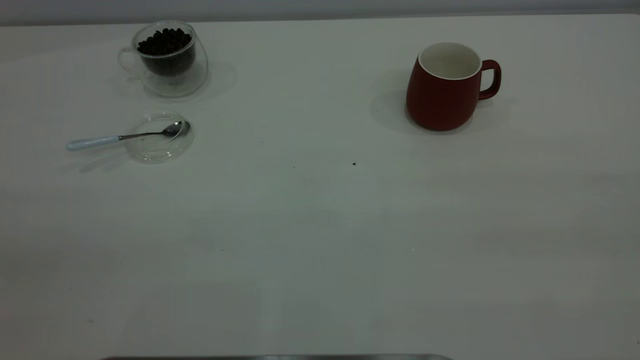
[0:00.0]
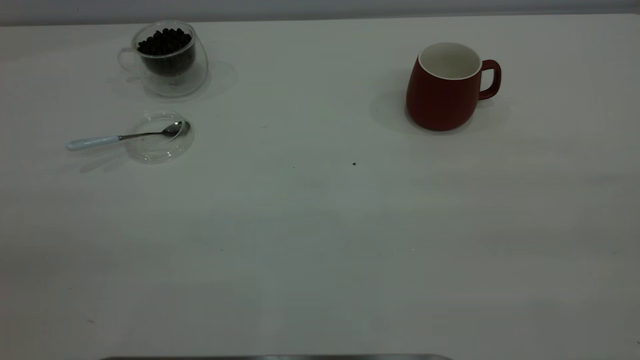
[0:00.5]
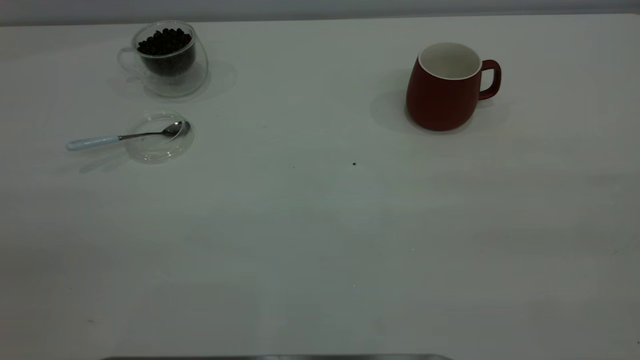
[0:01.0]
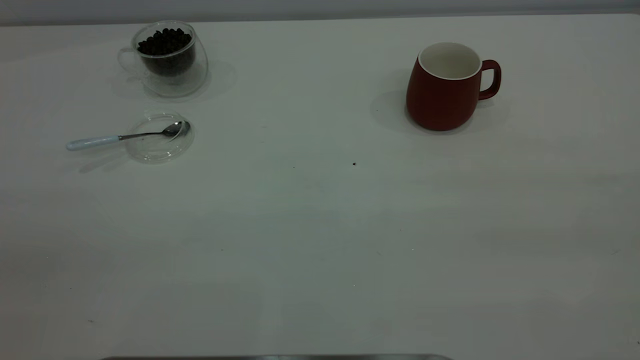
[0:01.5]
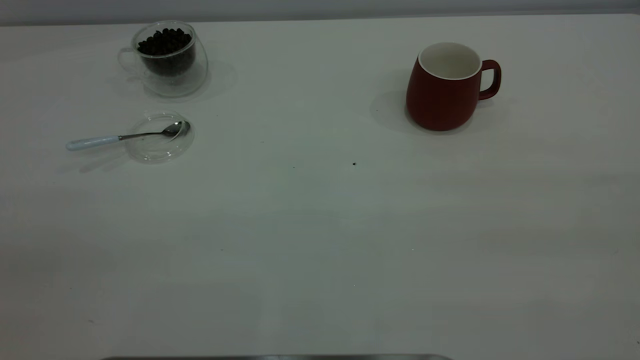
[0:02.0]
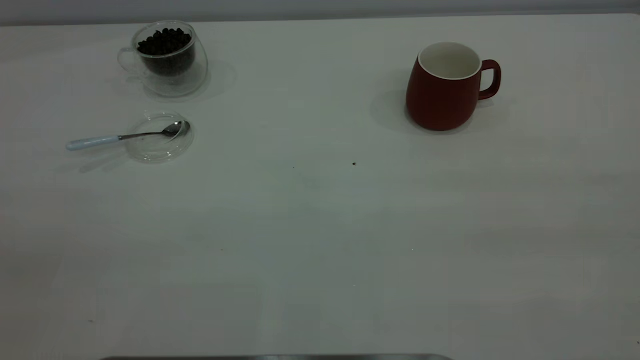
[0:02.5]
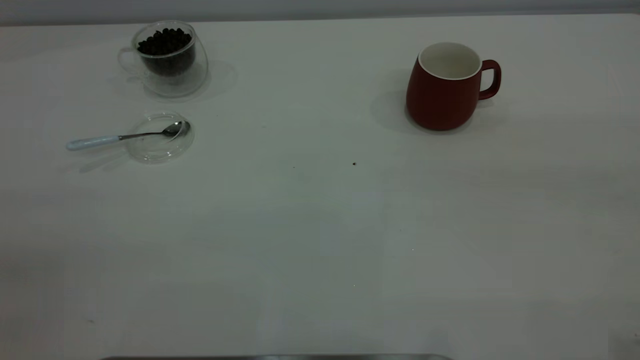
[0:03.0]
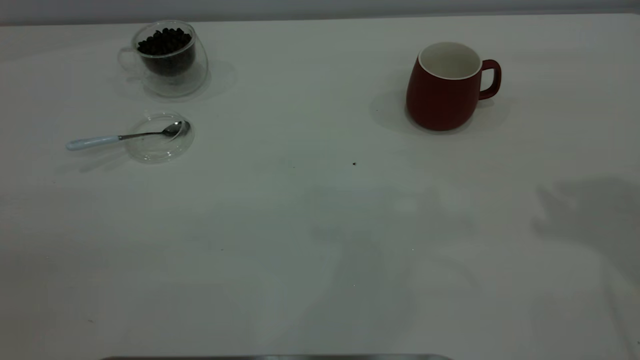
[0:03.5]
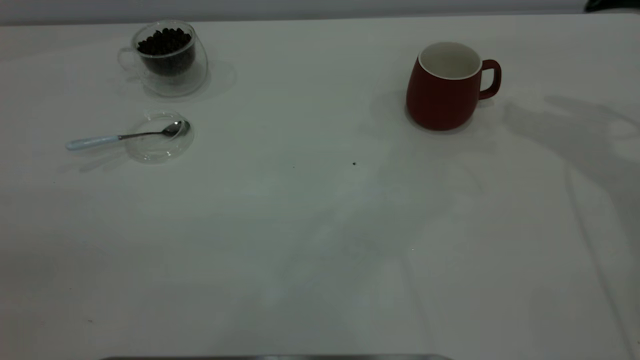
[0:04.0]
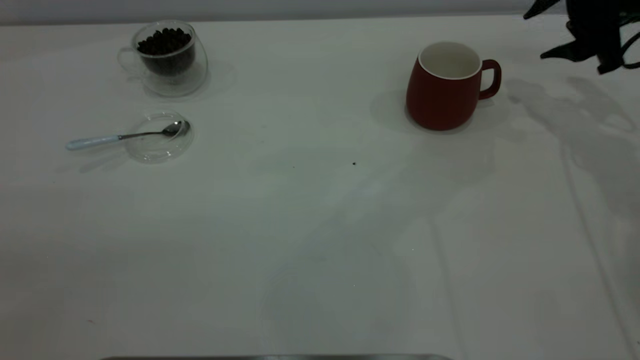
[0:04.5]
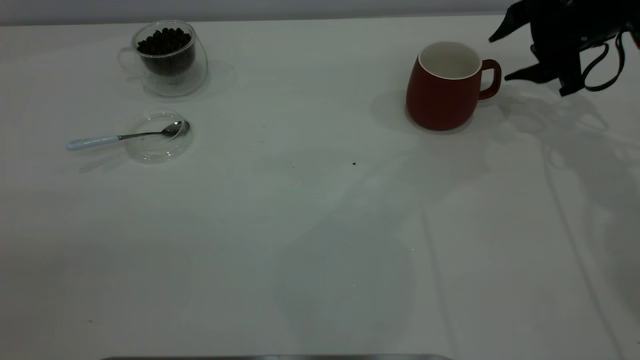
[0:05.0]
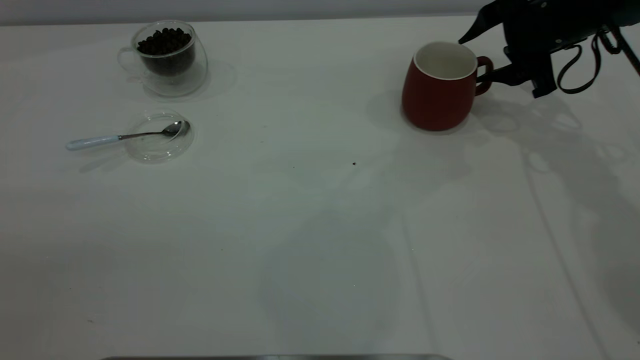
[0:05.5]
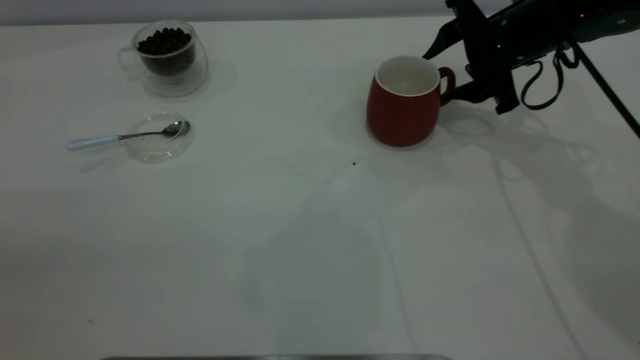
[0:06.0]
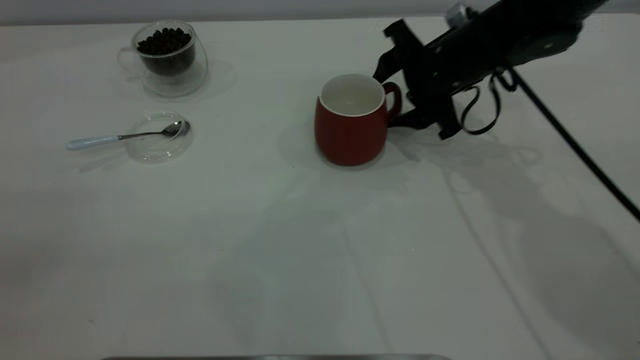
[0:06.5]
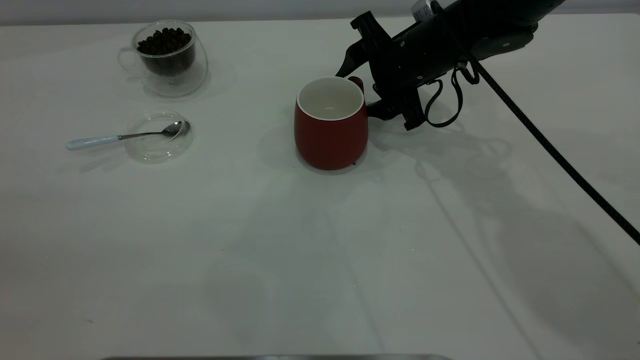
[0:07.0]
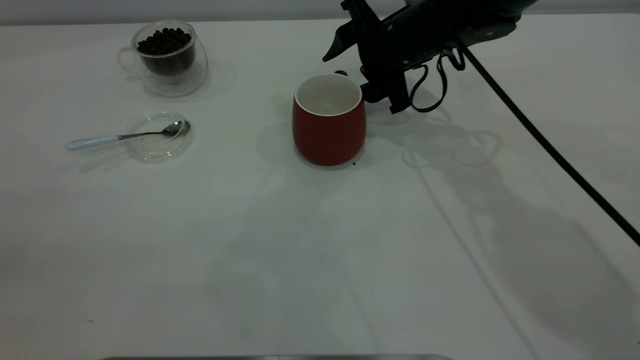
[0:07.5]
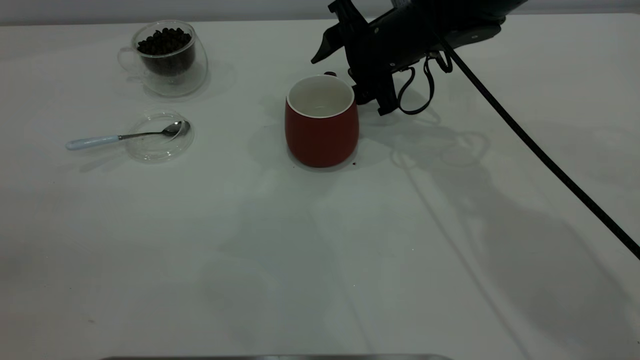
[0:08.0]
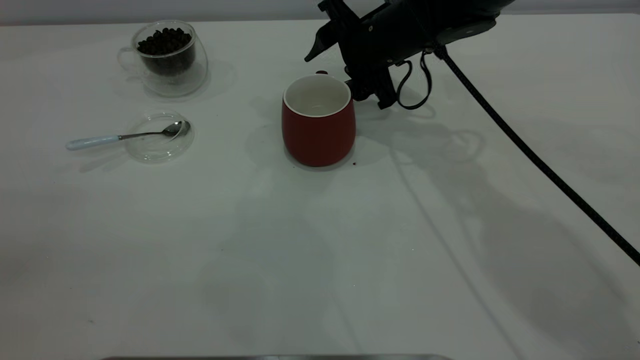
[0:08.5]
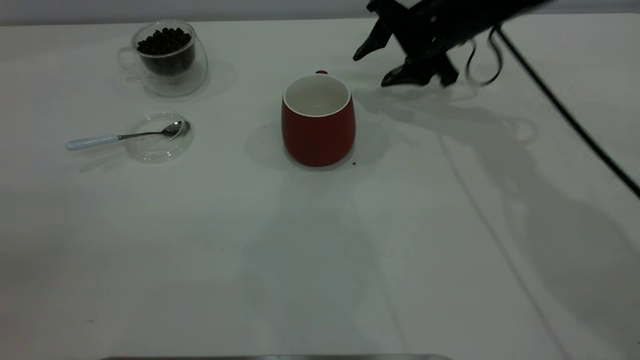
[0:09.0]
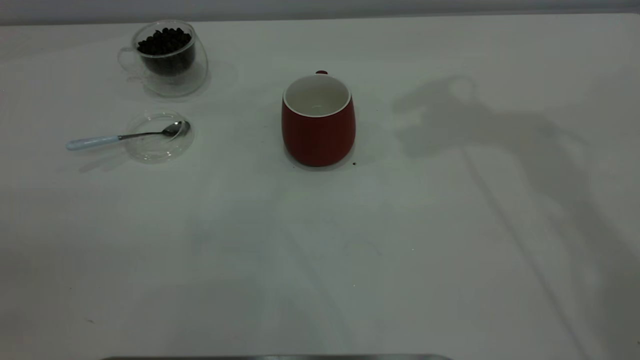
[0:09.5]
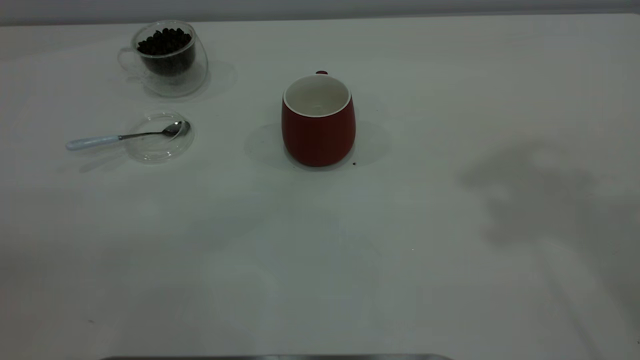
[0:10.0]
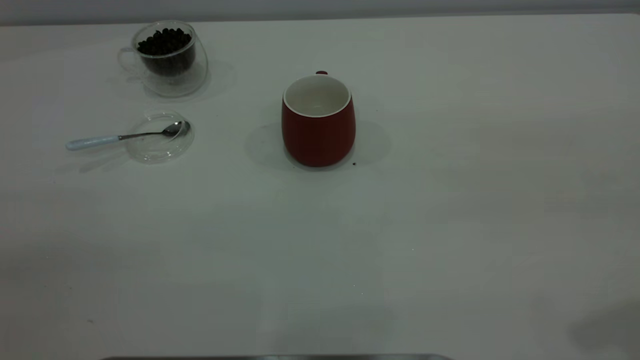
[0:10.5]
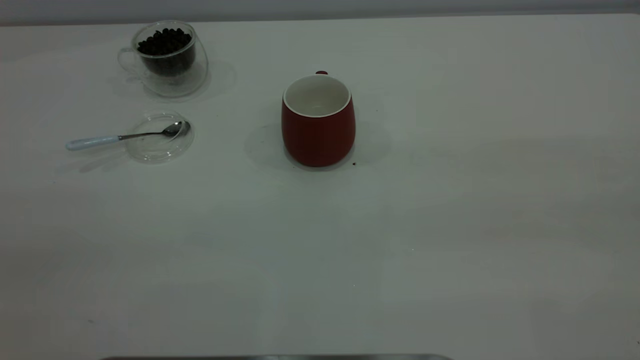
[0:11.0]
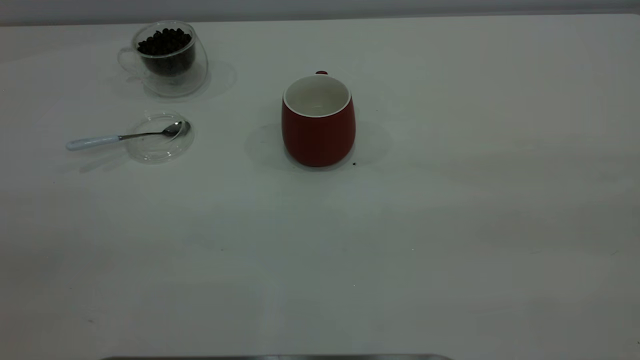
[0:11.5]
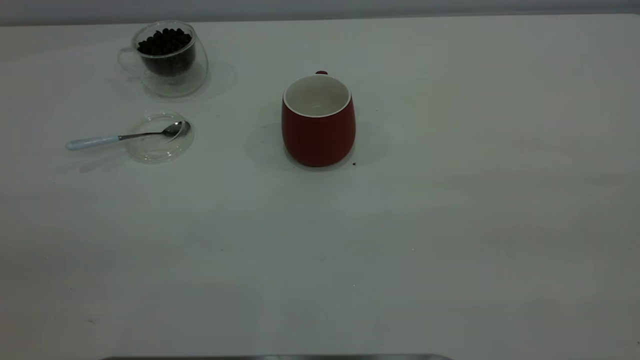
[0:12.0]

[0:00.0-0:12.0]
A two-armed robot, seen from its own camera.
Task of the whole recording: the right gripper place the red cup in the center of the table, the left gripper take the blue spoon from the cup lid and scoop out the coffee beans from the coffee cup and put them into the red cup, the left gripper put the spoon back into the cup lid.
Step, 0:00.0 to 0:08.5: Move the cup to the center of view.
0:00.0 to 0:02.0: Both grippers stay about where they are.
0:04.0 to 0:06.0: The right gripper is displaced downward and to the left by about 15 cm.
0:06.0 to 0:08.0: The right gripper heads to the left, covering approximately 15 cm.
0:08.0 to 0:10.0: The right gripper goes roughly 40 cm upward, backward and to the right.

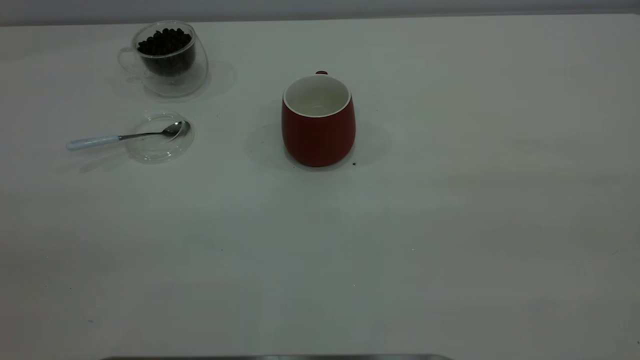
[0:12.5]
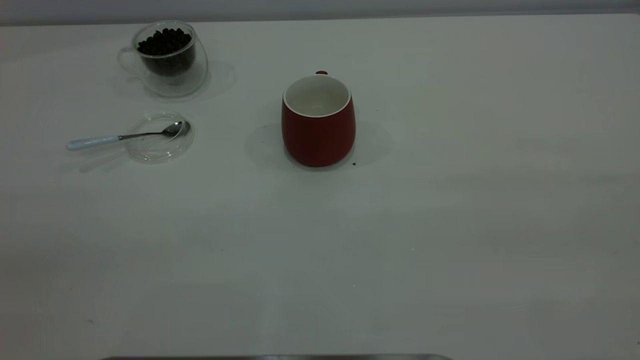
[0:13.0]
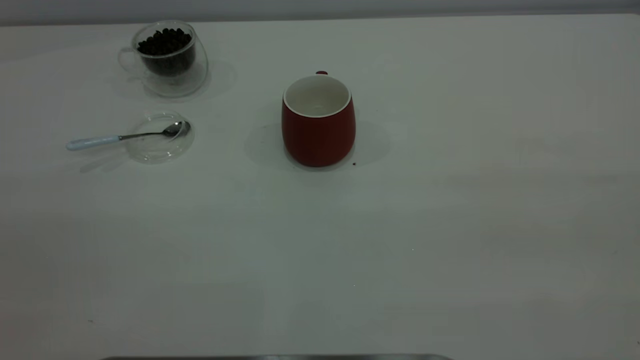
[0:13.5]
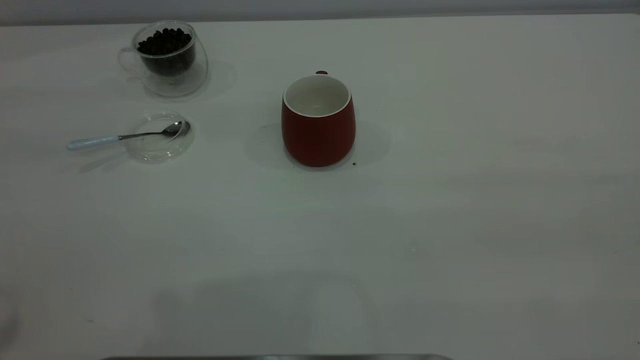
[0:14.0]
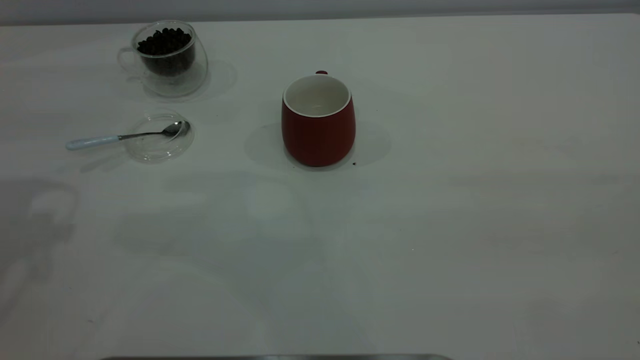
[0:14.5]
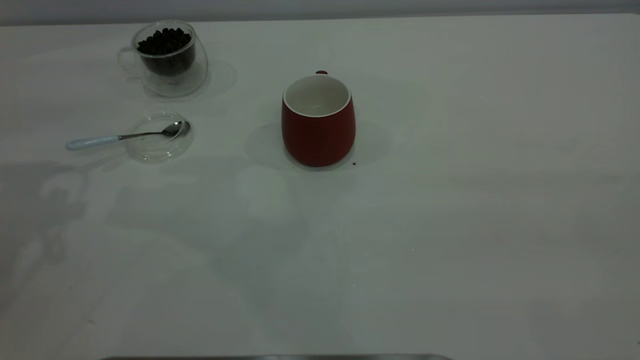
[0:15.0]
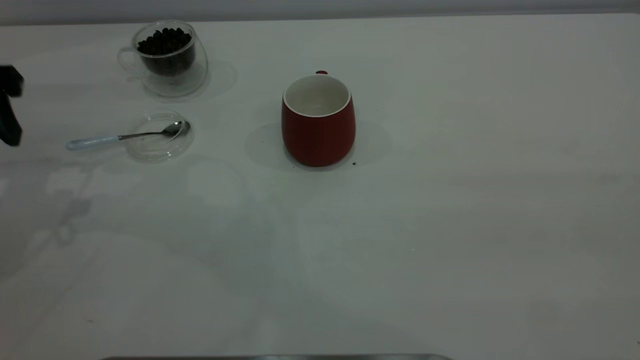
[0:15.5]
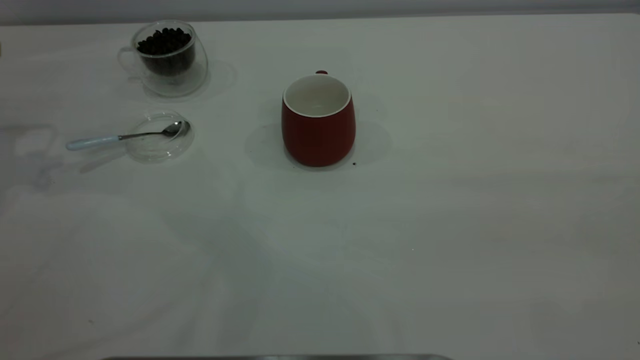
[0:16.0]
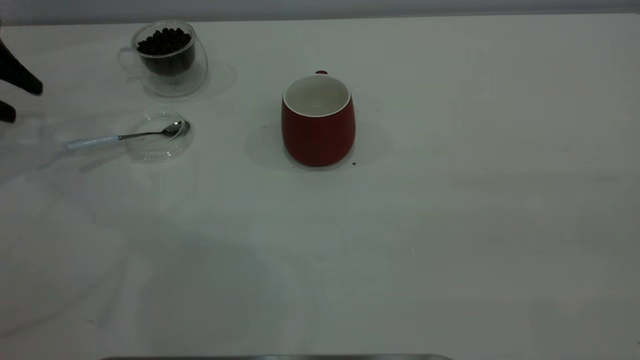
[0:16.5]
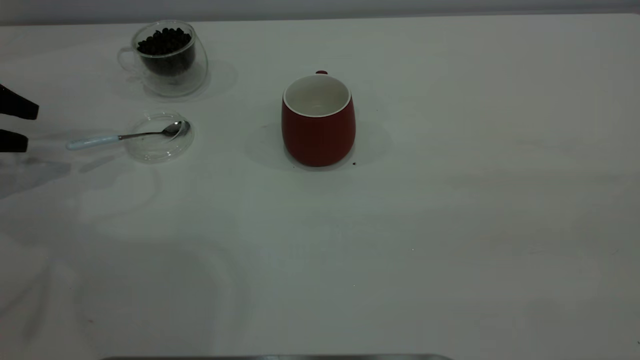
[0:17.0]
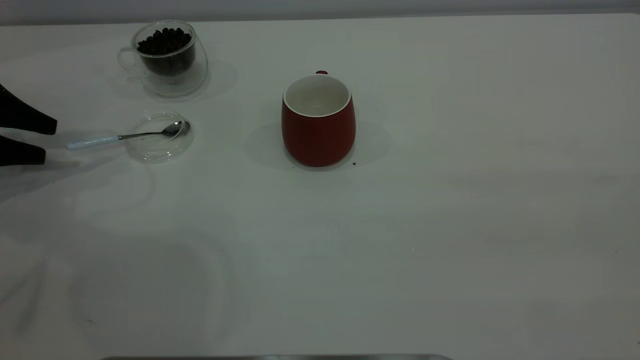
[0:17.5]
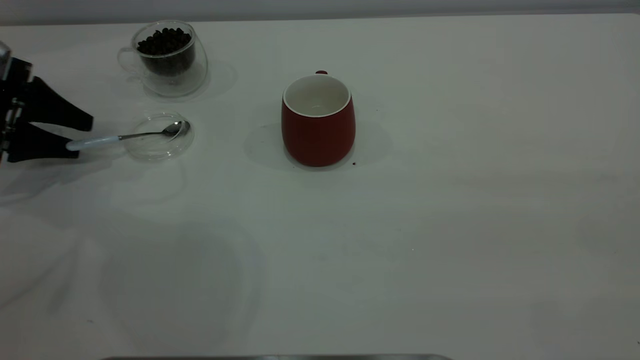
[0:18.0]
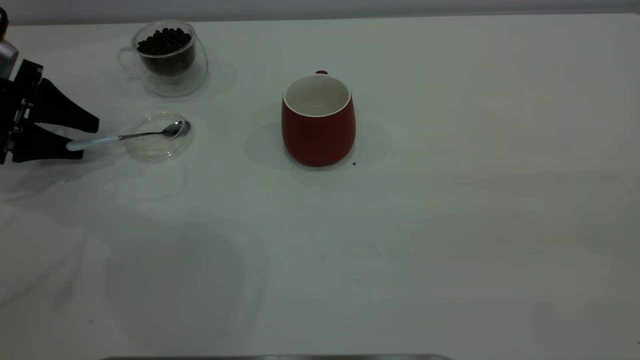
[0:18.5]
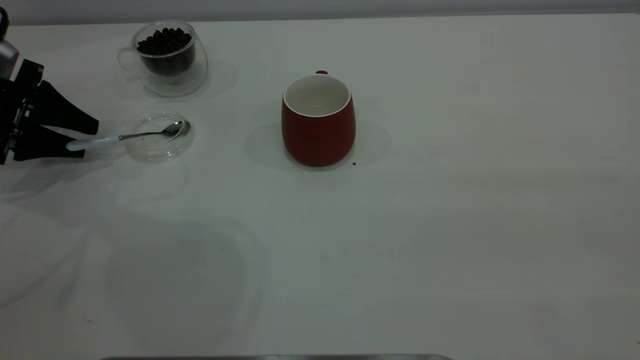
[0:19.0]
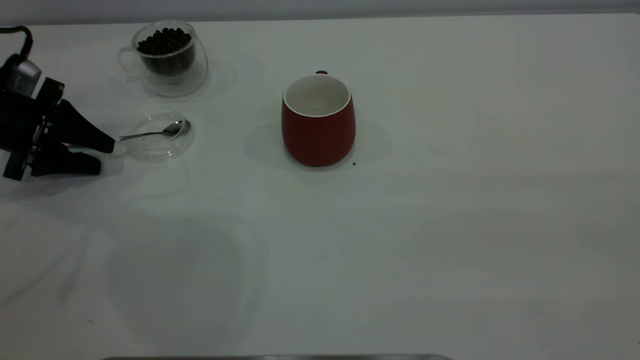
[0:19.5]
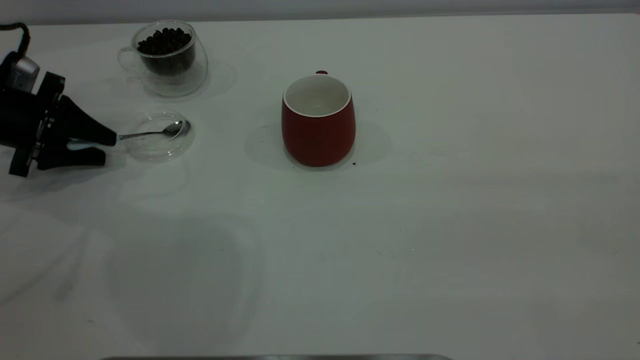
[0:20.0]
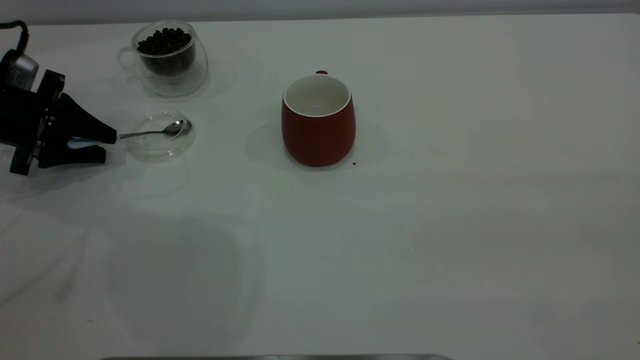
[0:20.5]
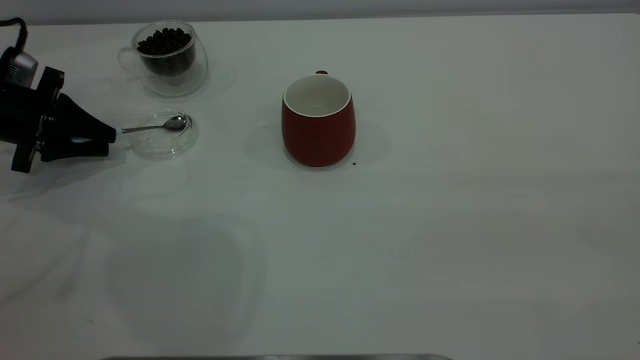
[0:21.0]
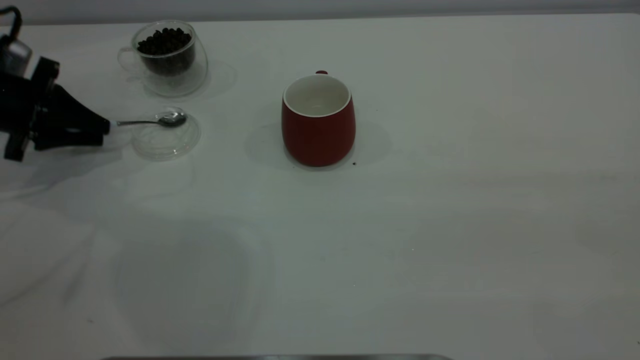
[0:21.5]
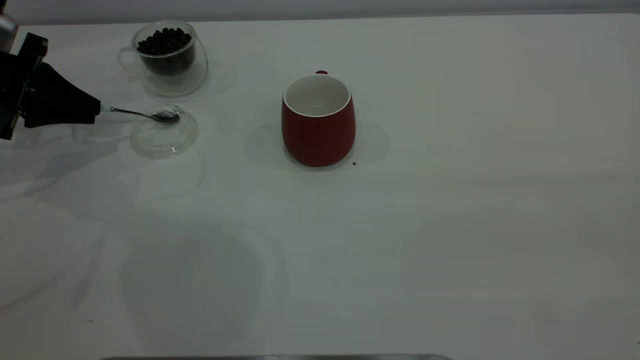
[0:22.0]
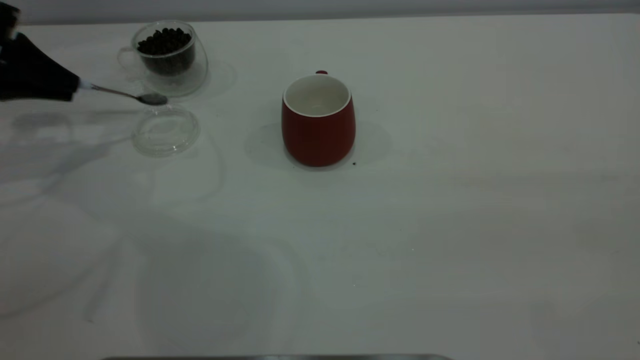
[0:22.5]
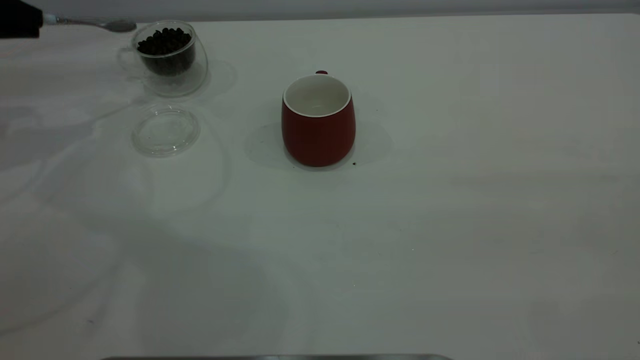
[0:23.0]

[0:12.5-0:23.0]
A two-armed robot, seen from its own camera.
Task of the whole recording: the right gripper place the red cup in the center of the table, the left gripper take the blue spoon from the cup lid and scoop out the coffee beans from the coffee cup and put them into the red cup, the left gripper put the spoon back into the cup lid.
Step, 0:12.5 to 0:22.5: Pick up the spoon.
0:14.5 to 0:16.5: The left gripper goes about 20 cm downward, forward and to the left.
0:16.5 to 0:19.0: The left gripper is displaced downward by some 5 cm.
0:19.0 to 0:21.0: The left gripper closes its fingers.
0:21.0 to 0:23.0: The left gripper travels upward by some 15 cm.
